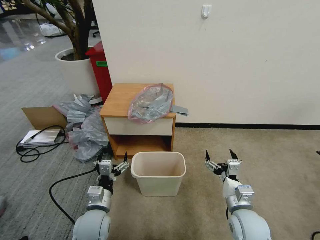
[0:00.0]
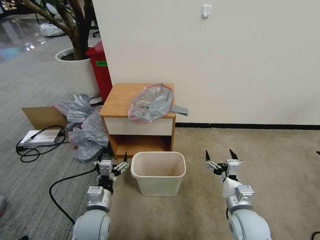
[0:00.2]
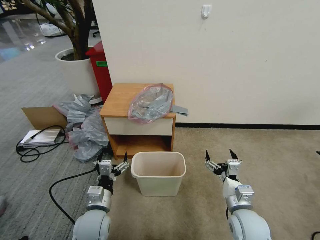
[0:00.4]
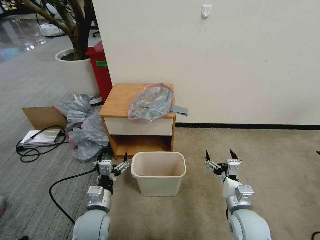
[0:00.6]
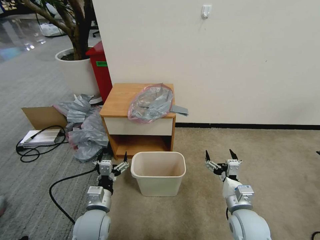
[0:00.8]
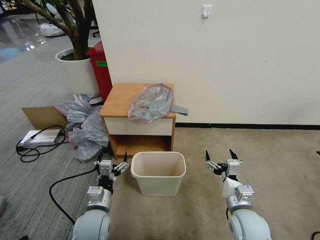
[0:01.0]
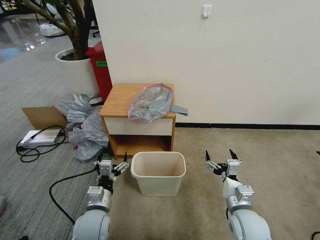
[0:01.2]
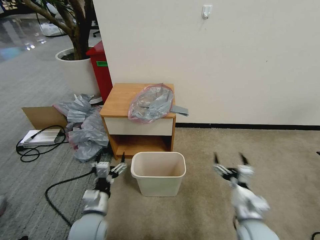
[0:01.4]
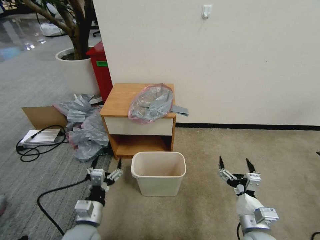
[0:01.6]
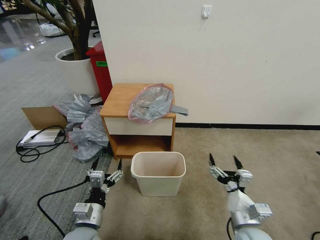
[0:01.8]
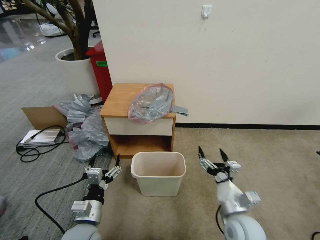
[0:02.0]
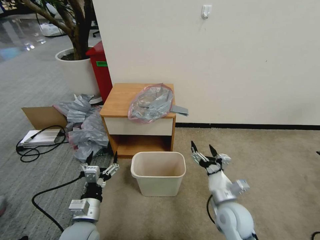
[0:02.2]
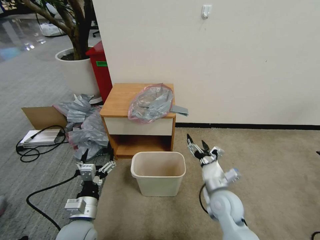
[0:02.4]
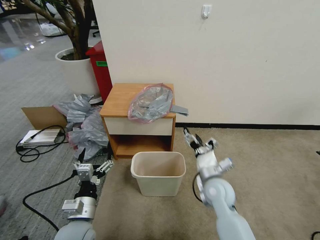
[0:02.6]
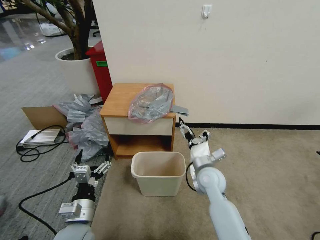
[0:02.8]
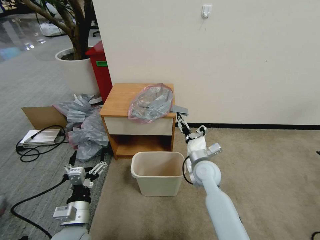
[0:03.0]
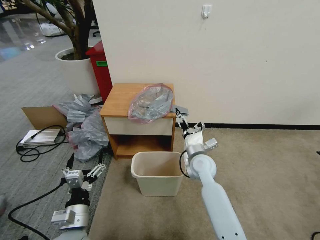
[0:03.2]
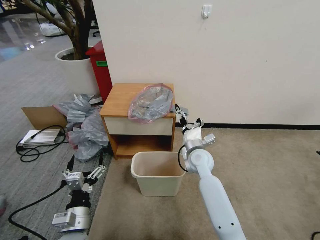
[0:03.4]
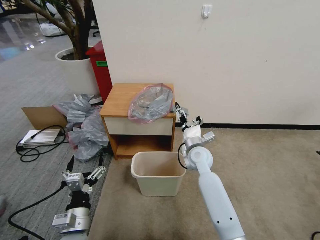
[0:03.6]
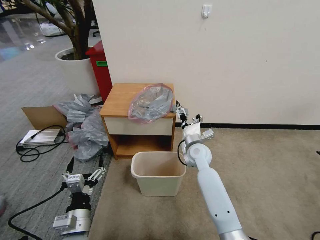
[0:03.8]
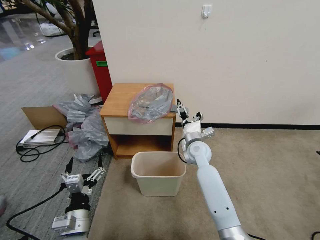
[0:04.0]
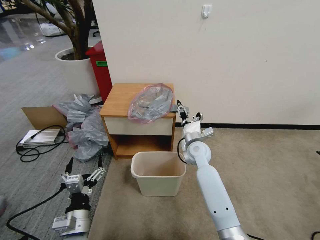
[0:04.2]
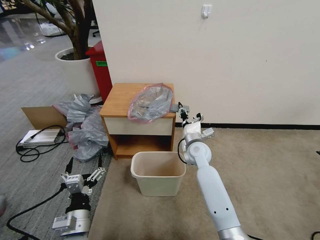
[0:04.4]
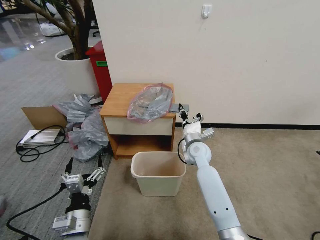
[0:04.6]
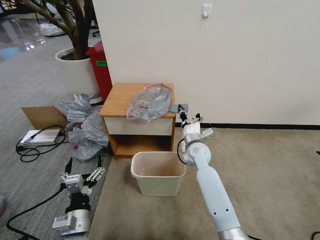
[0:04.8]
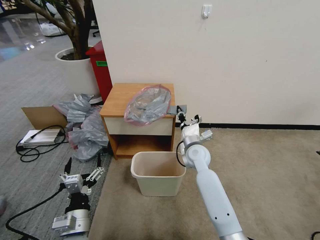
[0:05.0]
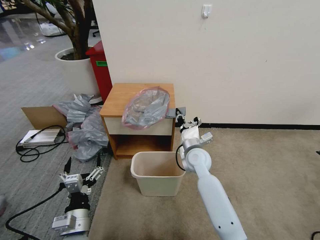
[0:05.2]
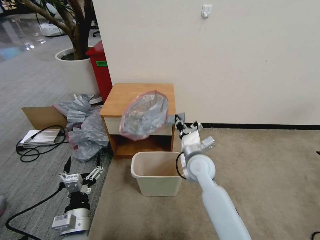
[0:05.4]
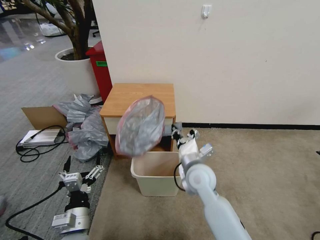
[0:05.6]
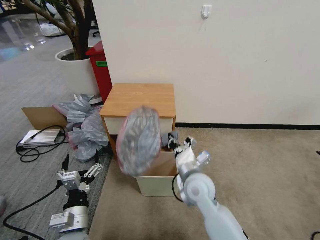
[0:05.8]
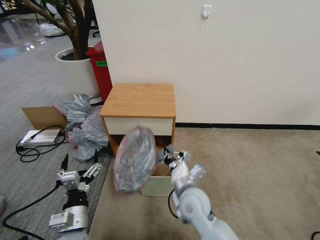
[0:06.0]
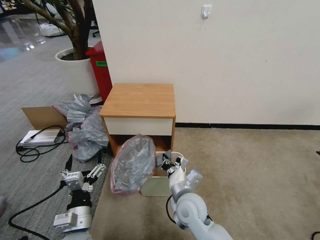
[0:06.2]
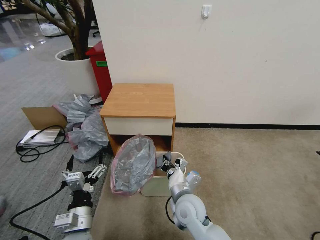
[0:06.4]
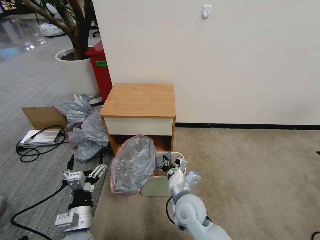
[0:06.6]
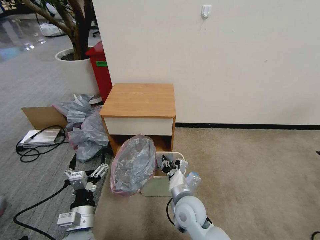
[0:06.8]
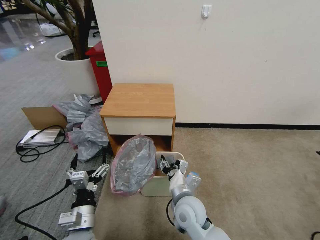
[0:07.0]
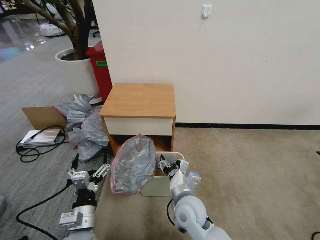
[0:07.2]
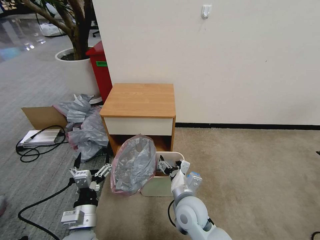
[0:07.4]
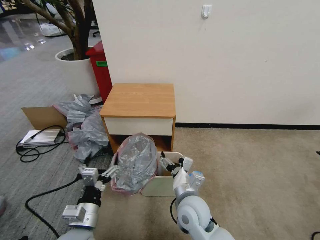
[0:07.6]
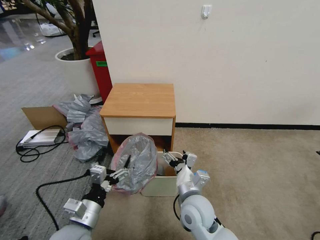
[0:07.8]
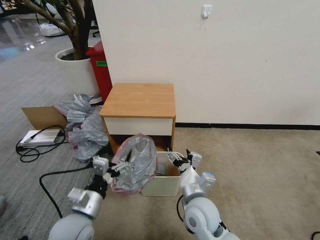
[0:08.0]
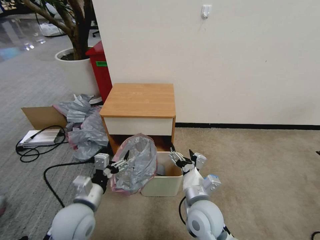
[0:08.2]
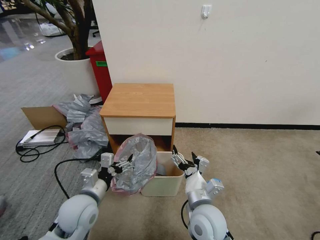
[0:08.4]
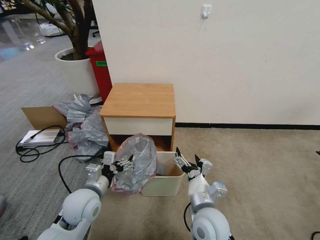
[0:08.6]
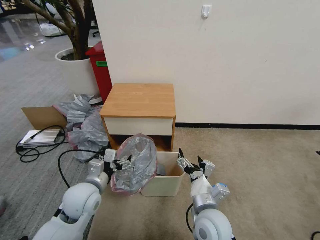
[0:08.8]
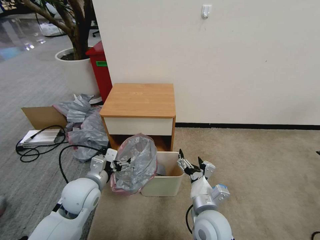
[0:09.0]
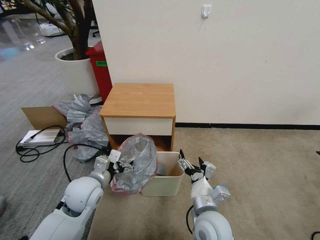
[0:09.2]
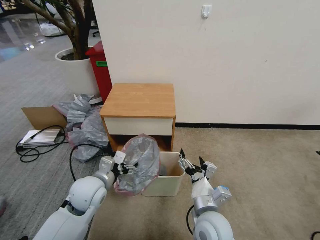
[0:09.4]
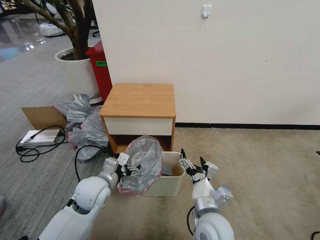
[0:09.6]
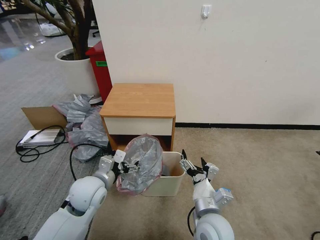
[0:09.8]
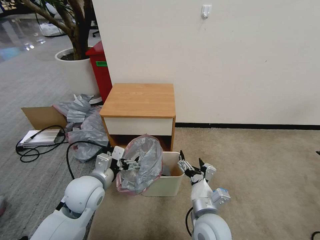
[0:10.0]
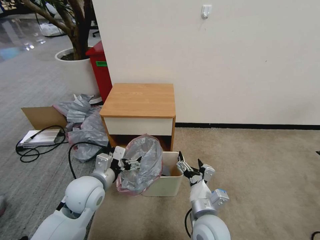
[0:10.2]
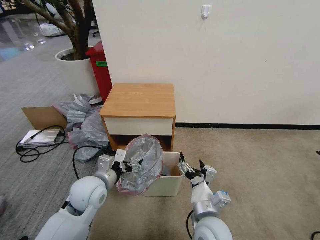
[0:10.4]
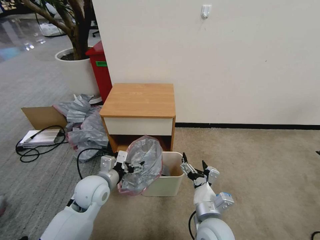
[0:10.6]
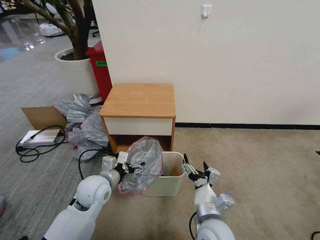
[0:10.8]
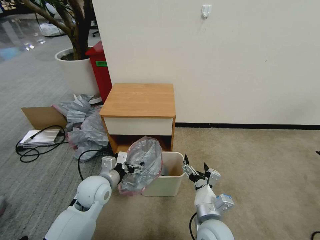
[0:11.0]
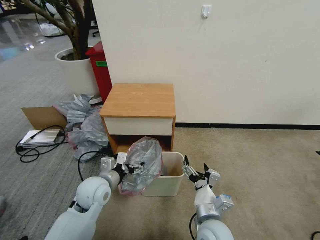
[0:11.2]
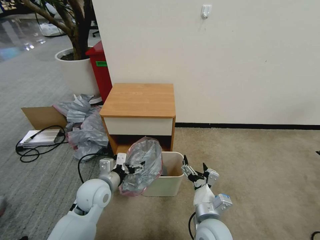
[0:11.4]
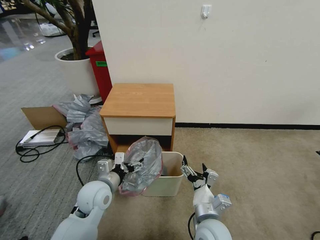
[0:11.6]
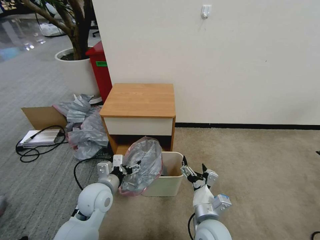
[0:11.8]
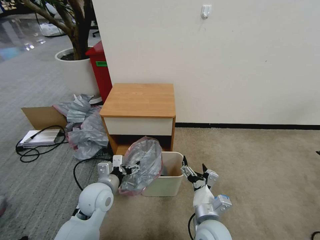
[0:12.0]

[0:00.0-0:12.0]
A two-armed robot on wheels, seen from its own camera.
Task of the whole recording: Pick up the garbage bag from the table and place it over the trash can.
0:01.6 to 0:03.0: The right gripper travels forward and to the left by roughly 25 cm.
0:03.0 to 0:04.4: The right gripper is displaced forward by about 10 cm, and closes.
0:04.4 to 0:06.0: The right gripper goes roughly 20 cm backward.
0:06.0 to 0:07.6: The right gripper opens.
0:07.6 to 0:09.0: The right gripper ends up roughly 5 cm from where it was; the left gripper moves forward, approximately 10 cm.
0:09.0 to 0:10.4: There are only small adjustments of the grippers.
0:10.4 to 0:12.0: The grippers stay close to where they were, moving slightly.

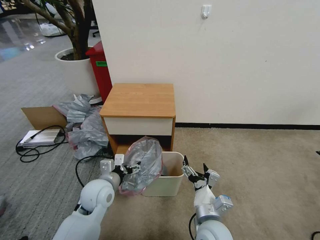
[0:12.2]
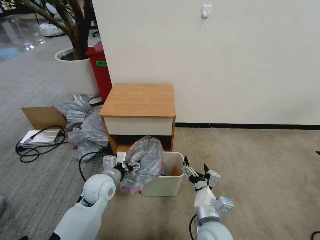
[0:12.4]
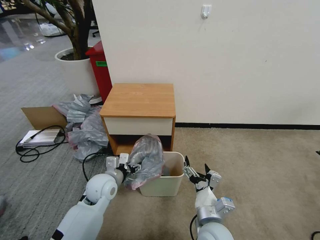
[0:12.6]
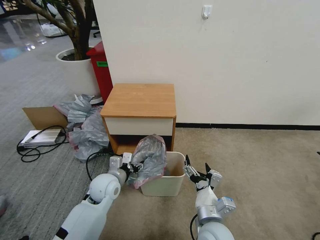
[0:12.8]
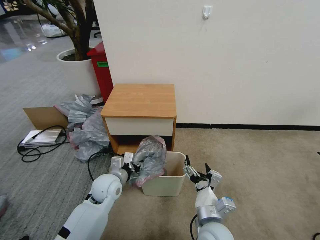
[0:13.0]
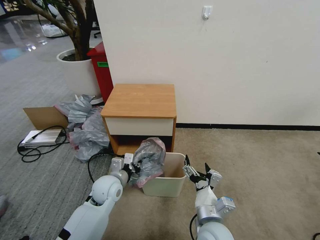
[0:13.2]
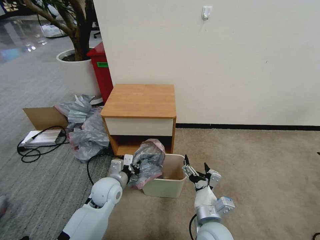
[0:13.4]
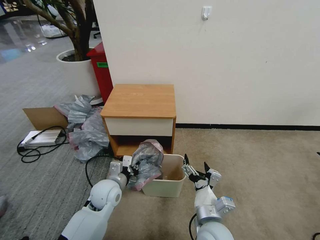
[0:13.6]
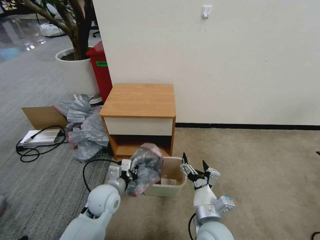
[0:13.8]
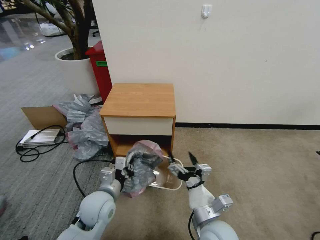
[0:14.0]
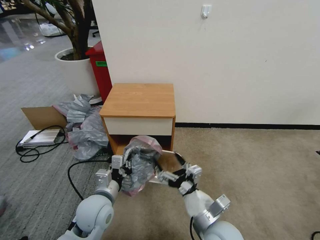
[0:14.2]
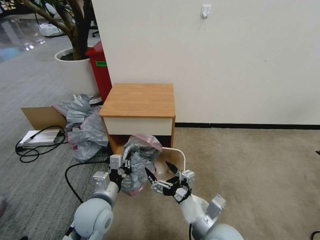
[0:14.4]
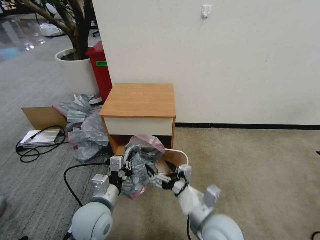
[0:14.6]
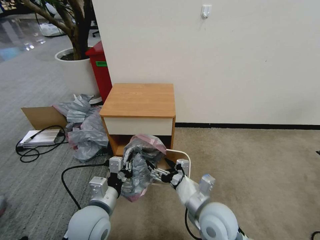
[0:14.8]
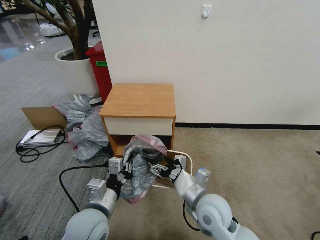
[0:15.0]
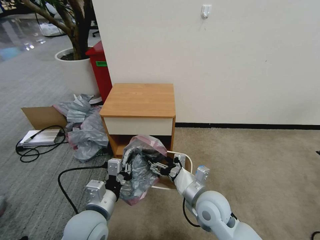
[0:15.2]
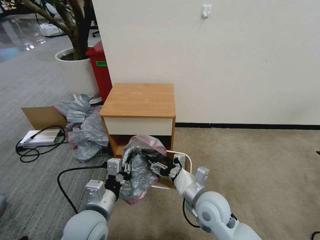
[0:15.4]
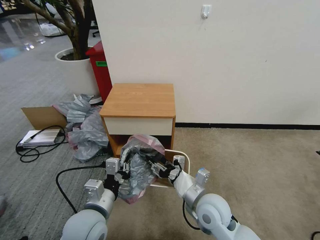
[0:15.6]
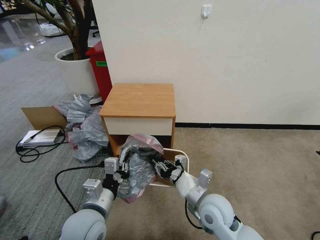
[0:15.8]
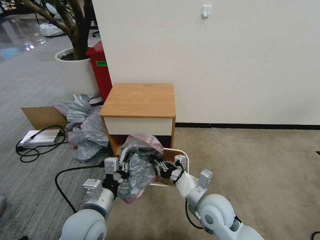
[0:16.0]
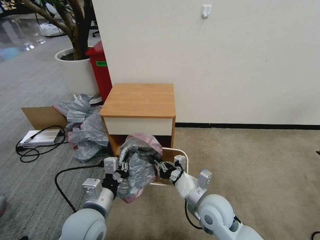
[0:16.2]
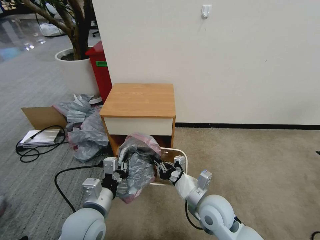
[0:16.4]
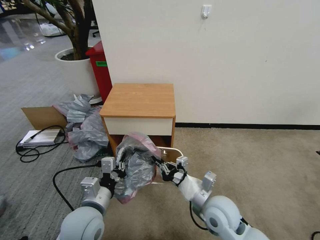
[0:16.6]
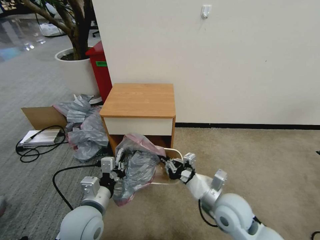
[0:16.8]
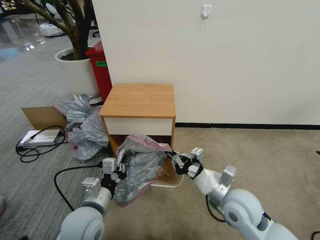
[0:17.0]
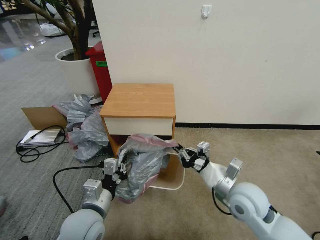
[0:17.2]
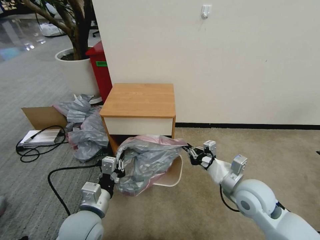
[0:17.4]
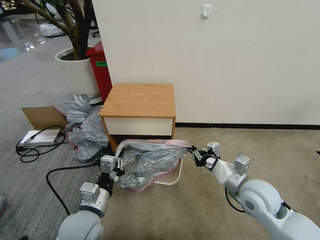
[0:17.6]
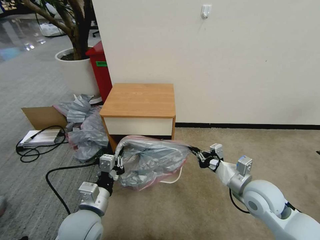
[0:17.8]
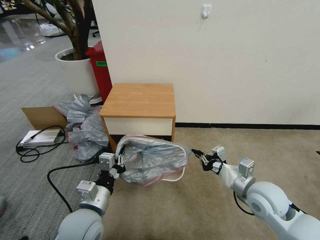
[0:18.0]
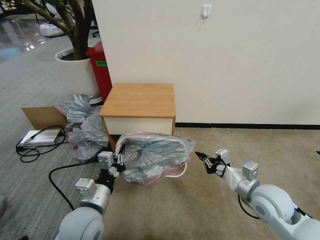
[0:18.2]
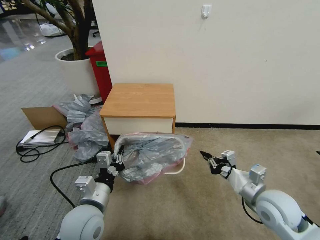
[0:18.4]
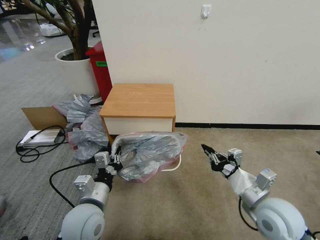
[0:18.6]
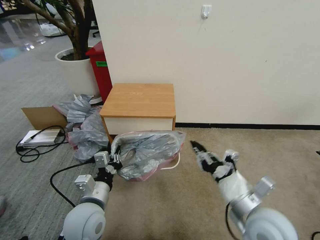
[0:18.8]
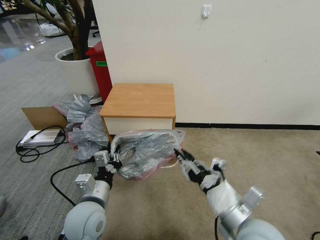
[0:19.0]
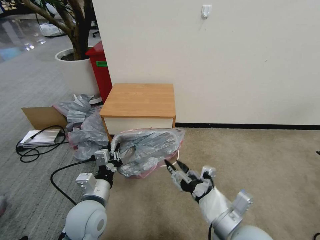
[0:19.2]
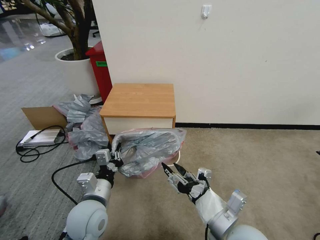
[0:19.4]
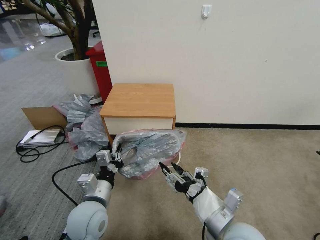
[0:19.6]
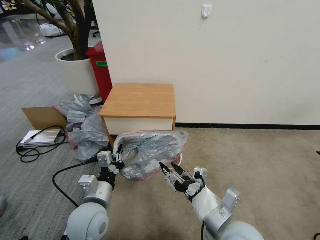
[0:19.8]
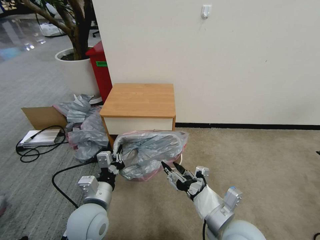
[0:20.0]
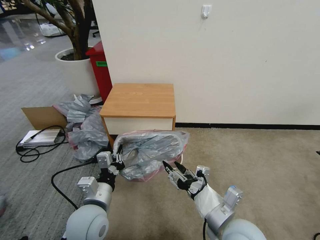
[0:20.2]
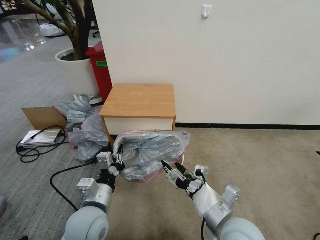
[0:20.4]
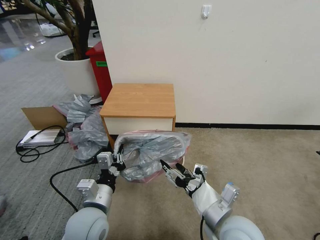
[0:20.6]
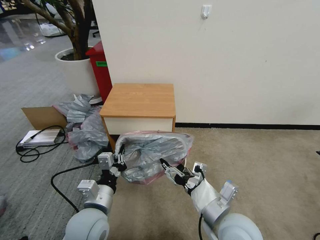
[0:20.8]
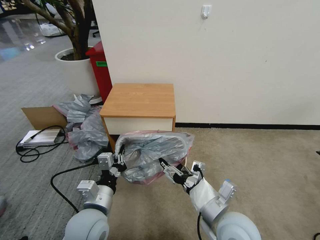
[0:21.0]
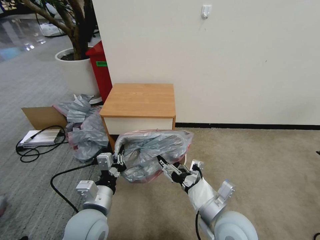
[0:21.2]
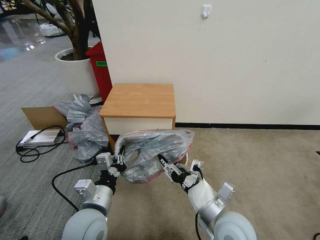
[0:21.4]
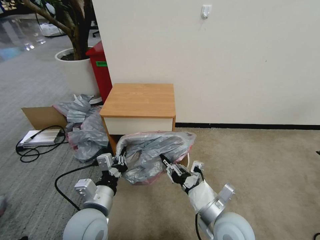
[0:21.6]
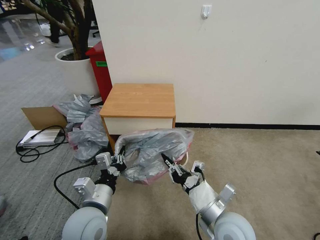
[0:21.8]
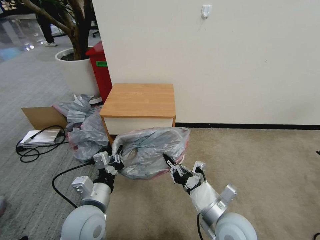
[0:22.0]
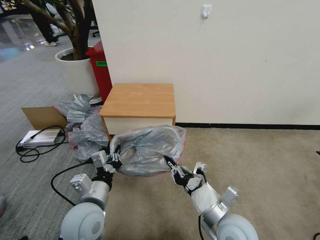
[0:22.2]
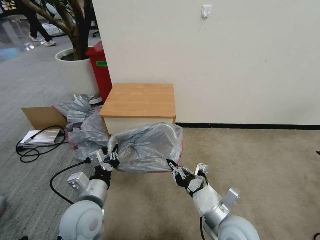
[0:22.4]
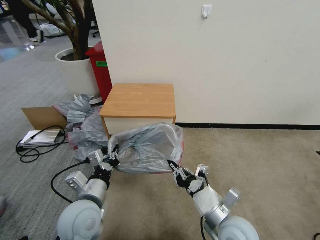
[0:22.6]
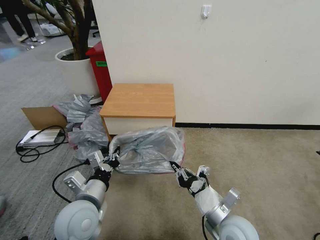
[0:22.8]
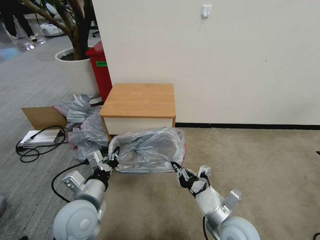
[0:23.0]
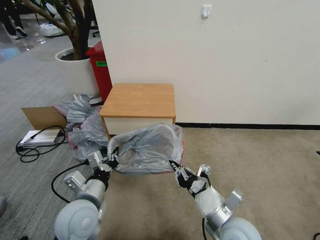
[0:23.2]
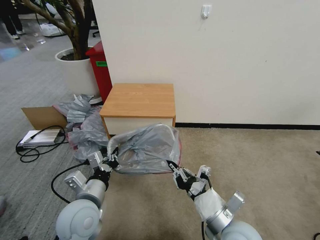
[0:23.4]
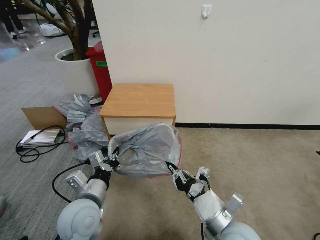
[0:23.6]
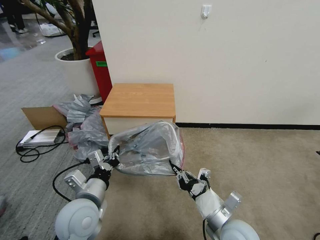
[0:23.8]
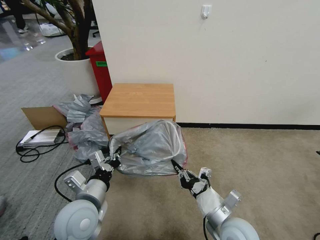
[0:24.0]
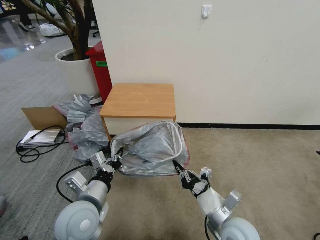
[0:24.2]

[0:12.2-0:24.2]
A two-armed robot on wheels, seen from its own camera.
Task of the whole recording: Pick up the garbage bag from the table and place it over the trash can.
0:12.2 to 0:13.8: The left gripper closes its fingers.
0:13.8 to 0:15.2: The right gripper moves forward, approximately 10 cm. Meanwhile the left gripper travels backward and upward by roughly 10 cm.
0:15.2 to 0:16.6: The right gripper closes.
0:16.6 to 0:18.2: The right gripper shifts roughly 15 cm to the right.
0:18.2 to 0:19.8: The right gripper moves to the left and backward, some 15 cm, and opens.
0:19.8 to 0:21.2: There are only small adjustments of the grippers.
0:21.2 to 0:22.6: The right gripper closes its fingers.
0:22.6 to 0:24.2: The grippers make only small movements.
